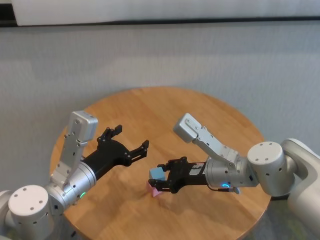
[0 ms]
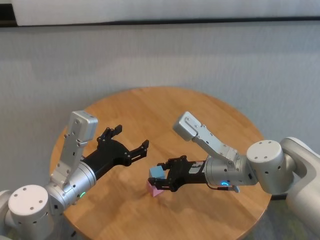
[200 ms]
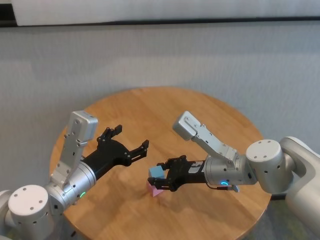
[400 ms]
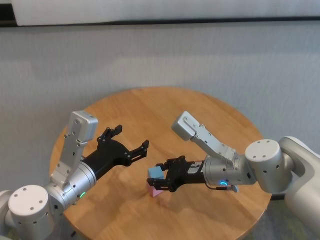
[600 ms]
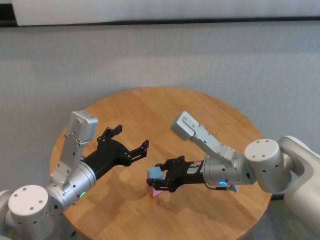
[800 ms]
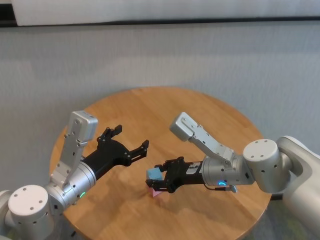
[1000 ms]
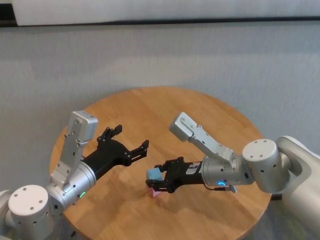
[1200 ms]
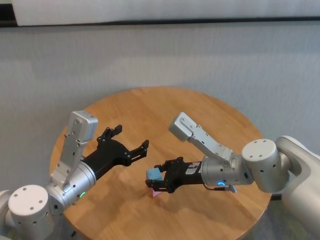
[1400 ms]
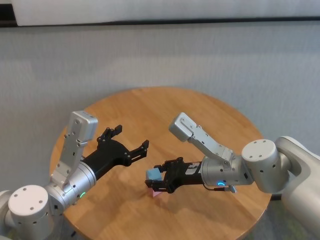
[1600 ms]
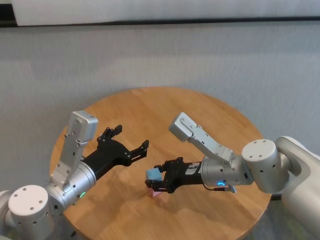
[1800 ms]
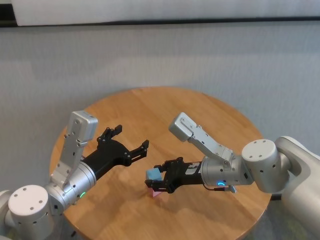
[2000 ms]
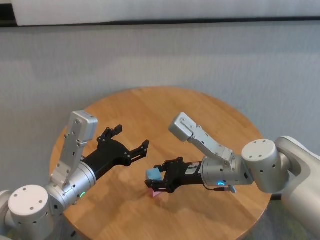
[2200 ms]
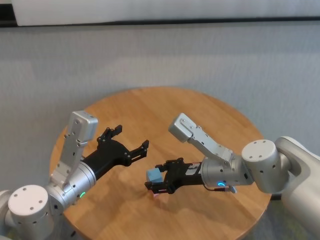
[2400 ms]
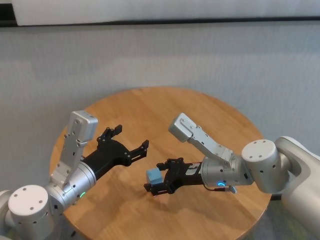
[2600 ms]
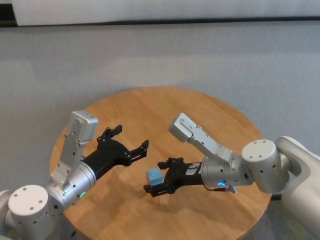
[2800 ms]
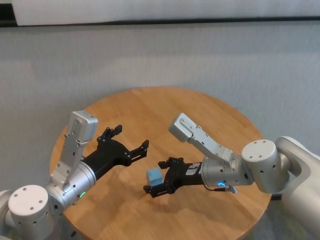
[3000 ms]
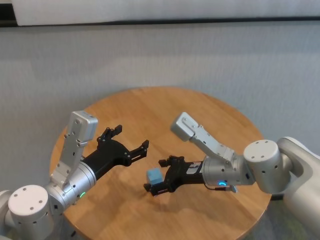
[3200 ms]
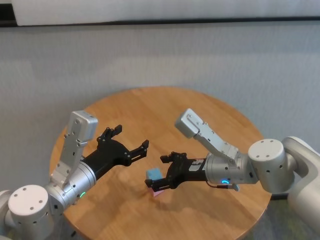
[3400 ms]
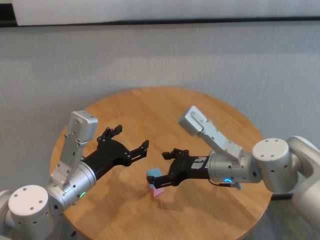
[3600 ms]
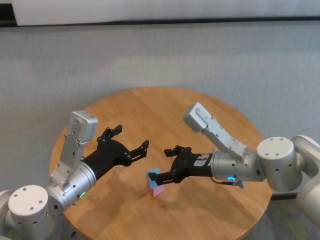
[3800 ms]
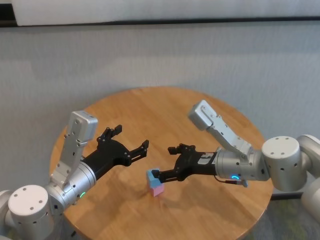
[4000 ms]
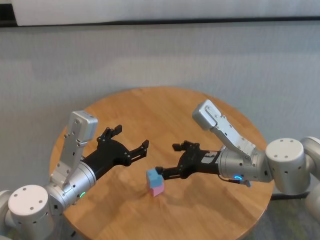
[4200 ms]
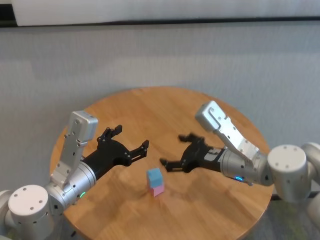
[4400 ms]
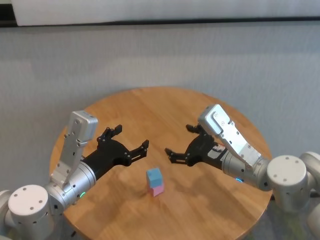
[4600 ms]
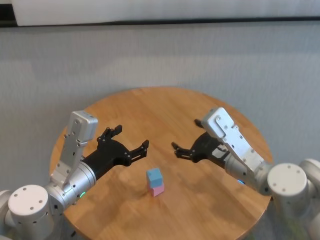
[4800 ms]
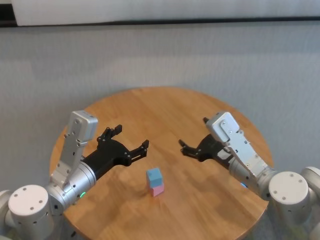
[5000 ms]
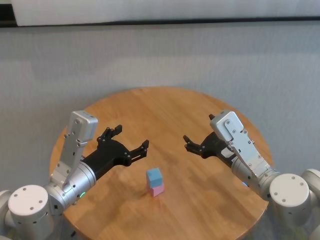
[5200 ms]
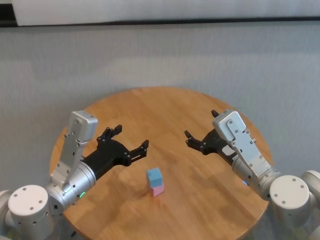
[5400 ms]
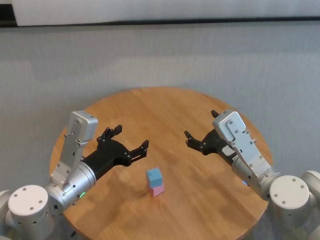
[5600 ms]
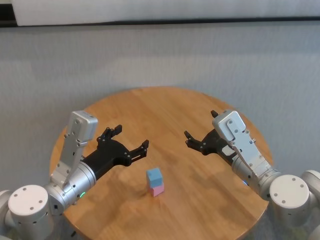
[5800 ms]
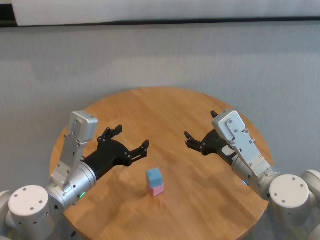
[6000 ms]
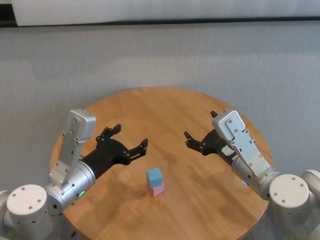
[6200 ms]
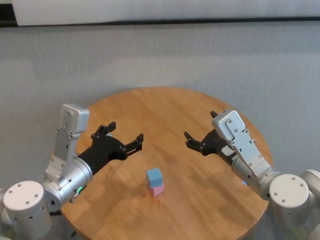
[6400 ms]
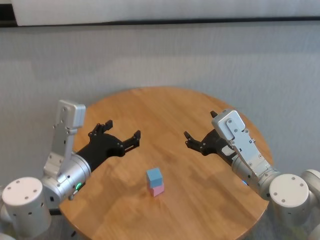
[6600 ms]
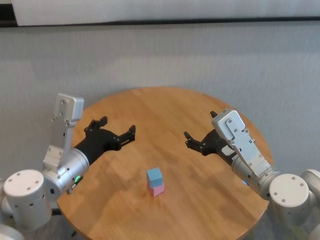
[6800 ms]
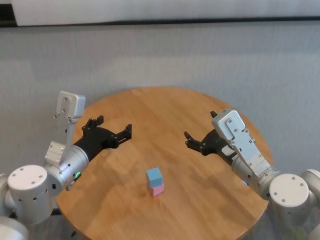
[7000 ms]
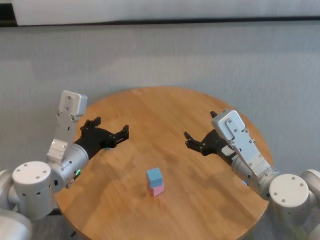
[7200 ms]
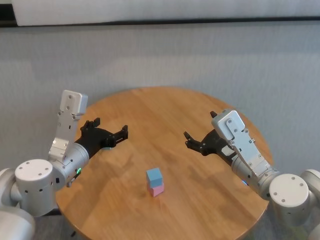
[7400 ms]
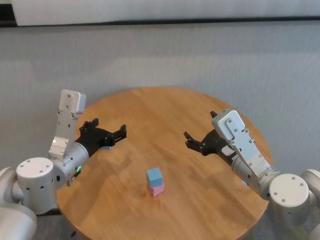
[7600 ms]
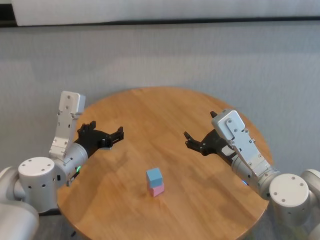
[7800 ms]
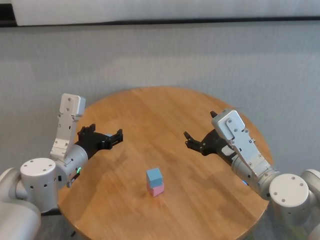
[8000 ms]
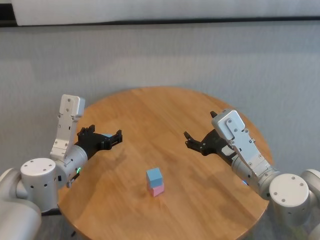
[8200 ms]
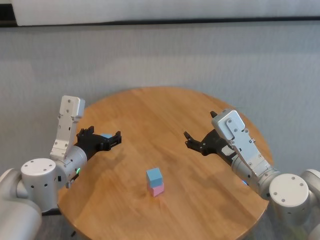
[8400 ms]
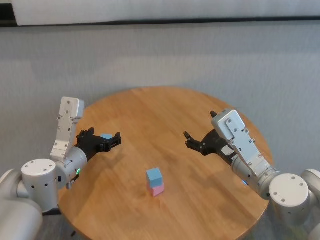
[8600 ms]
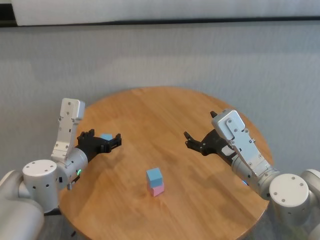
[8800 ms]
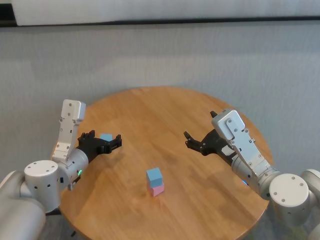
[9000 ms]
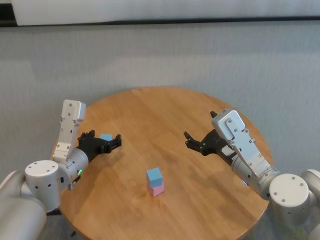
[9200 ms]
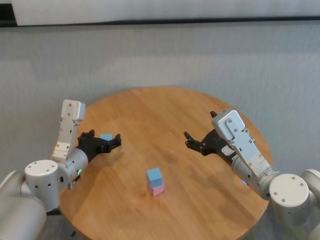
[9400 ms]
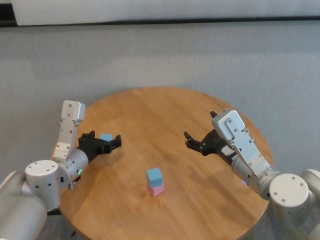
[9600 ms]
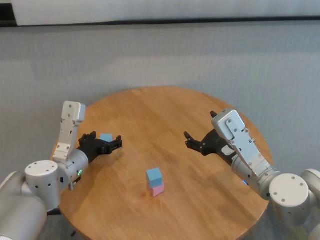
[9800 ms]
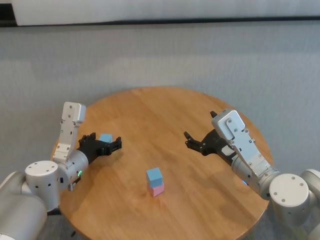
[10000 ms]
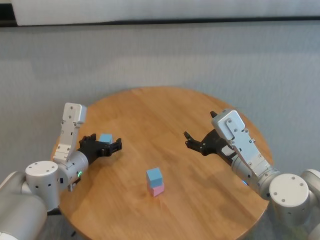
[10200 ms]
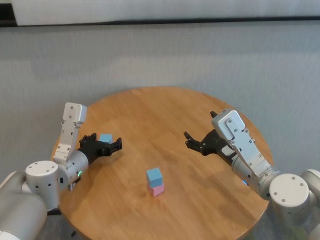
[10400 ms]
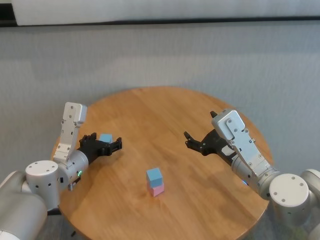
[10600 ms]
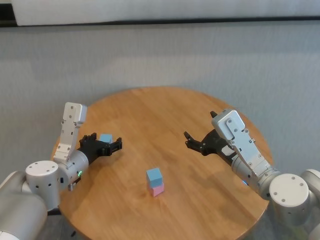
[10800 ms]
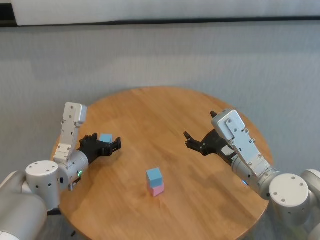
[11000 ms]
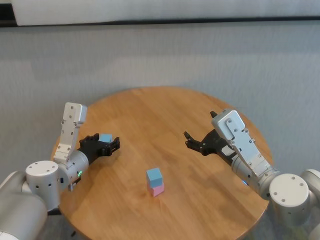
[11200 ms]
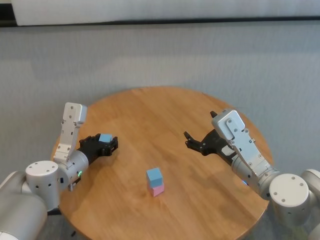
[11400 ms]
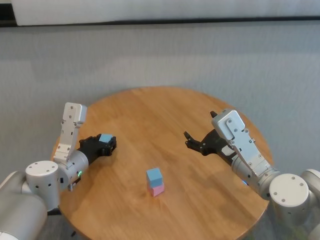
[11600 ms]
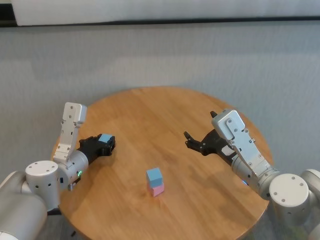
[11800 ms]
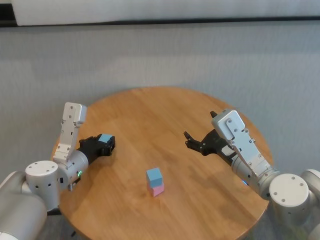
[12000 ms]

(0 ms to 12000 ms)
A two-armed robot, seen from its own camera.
Task of the whole recording: stack building blocks on the table.
Step, 0 ms - 2400 ms: Place the blue building block on the pink building blocks with right gripper.
Step, 2800 ms - 11600 ms: Grasp the blue building block with left gripper.

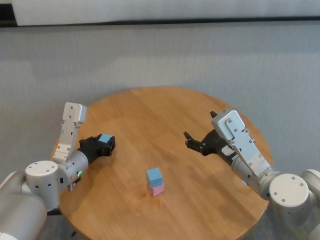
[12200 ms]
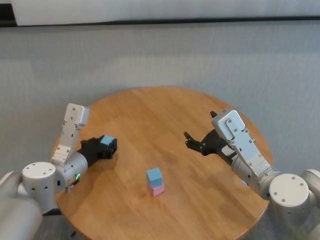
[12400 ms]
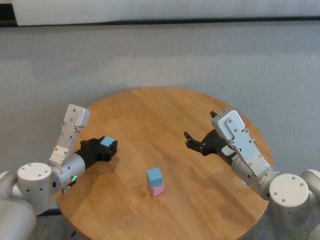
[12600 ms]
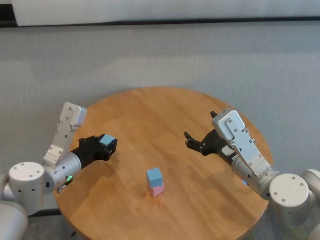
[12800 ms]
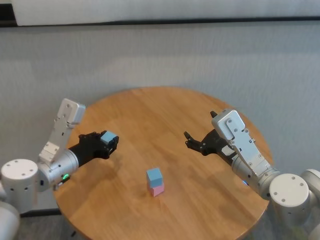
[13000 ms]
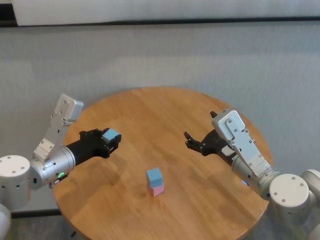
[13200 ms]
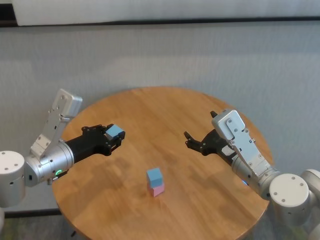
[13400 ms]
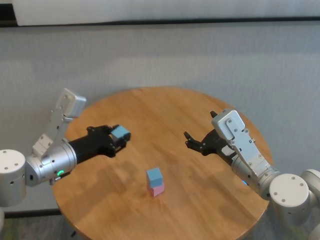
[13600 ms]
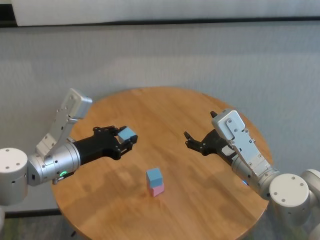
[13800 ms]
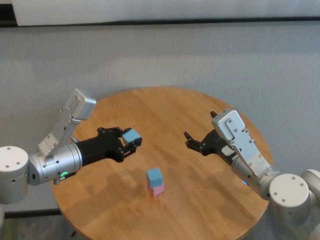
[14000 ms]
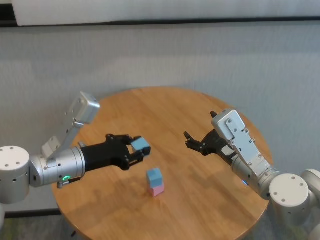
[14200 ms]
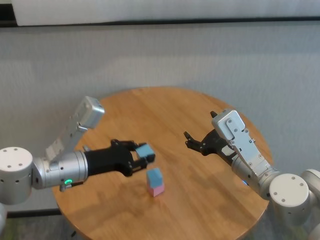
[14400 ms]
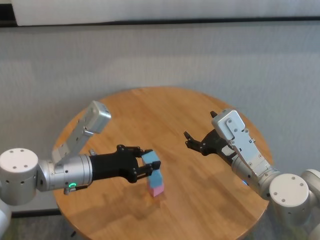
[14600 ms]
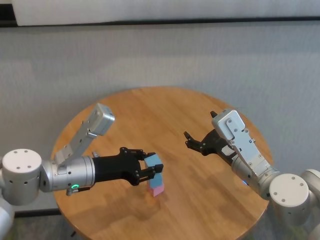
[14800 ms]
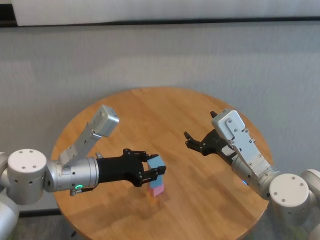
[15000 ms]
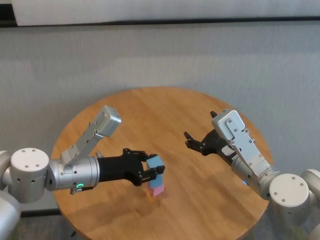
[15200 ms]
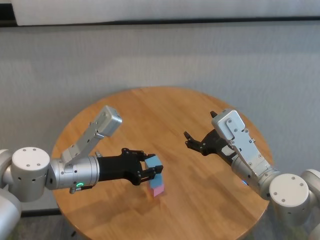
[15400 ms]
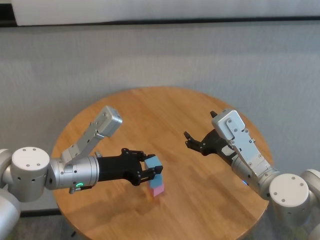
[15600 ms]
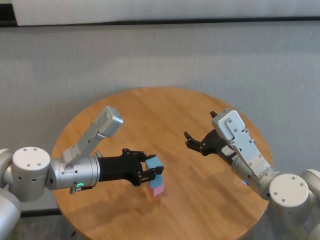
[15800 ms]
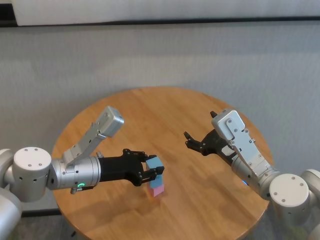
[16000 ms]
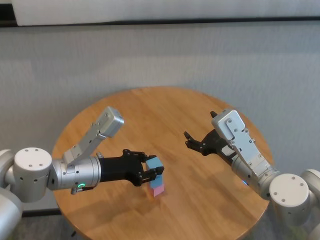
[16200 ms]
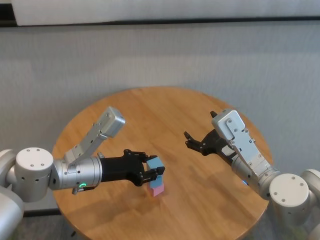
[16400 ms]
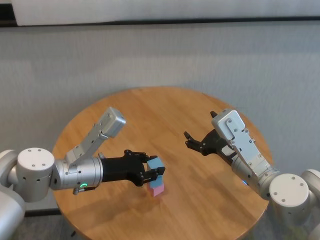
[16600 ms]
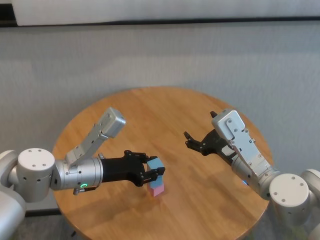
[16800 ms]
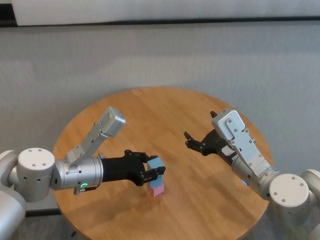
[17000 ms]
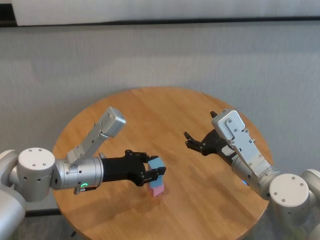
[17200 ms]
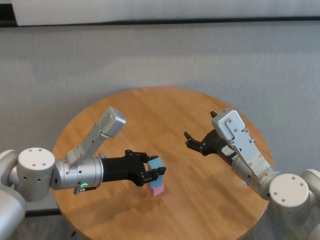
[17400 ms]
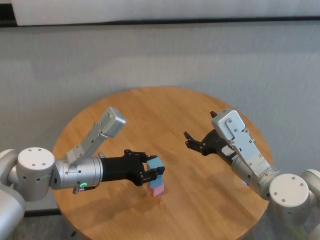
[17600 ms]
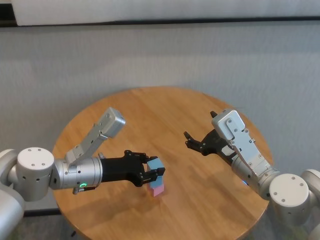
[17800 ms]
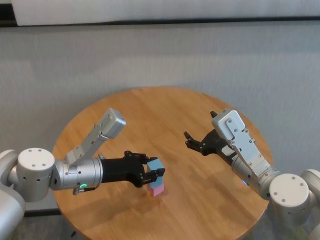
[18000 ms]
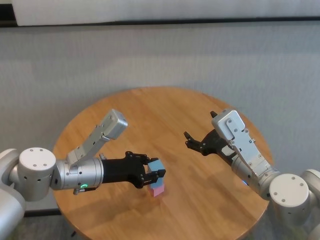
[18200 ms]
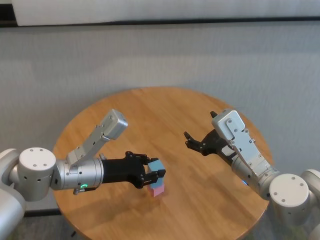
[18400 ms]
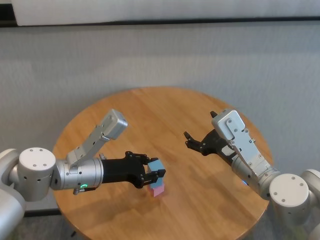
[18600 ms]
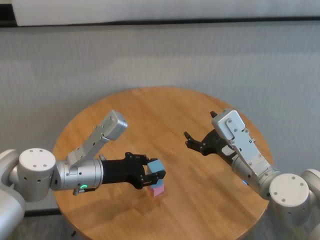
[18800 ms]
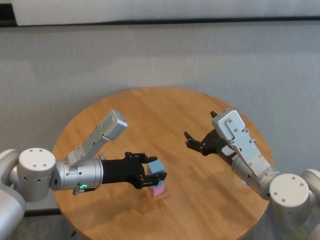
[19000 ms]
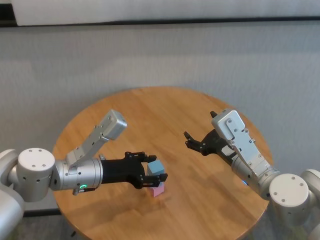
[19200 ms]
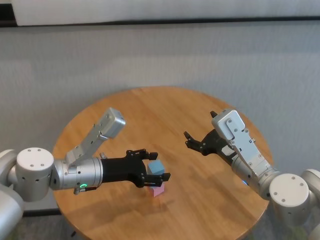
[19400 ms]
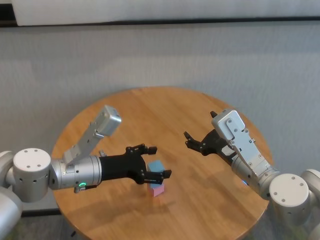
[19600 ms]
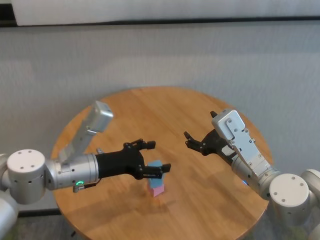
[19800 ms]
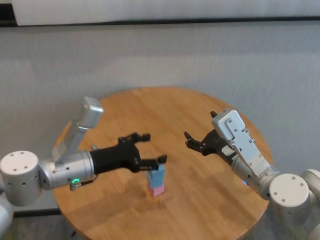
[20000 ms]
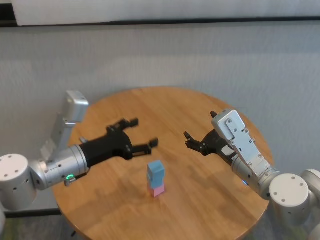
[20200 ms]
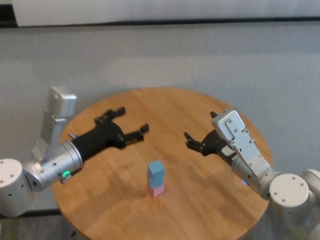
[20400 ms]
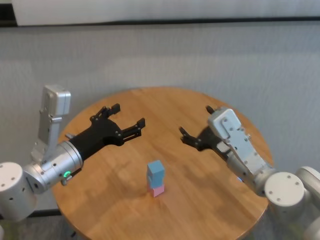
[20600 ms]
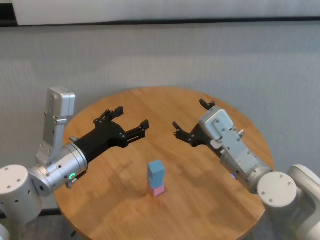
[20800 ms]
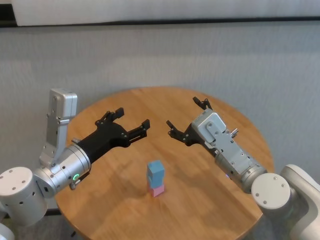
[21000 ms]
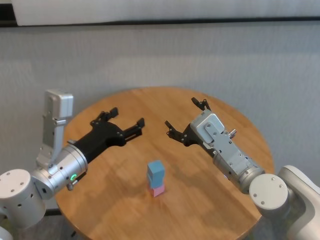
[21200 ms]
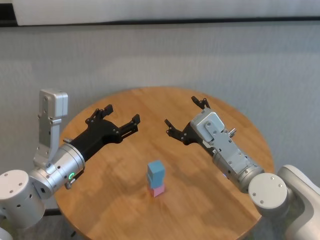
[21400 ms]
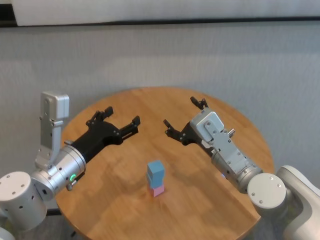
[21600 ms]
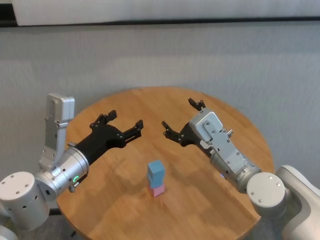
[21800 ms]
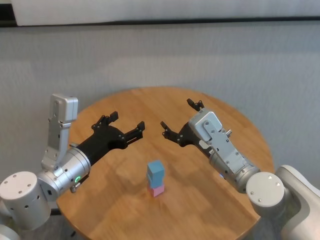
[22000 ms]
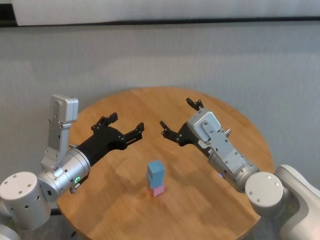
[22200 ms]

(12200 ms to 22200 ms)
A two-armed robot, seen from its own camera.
Task of the whole recording: stack building blocks on the table.
Step, 12200 ms - 19000 ms: Place the blue building block on the blue building blocks with left gripper.

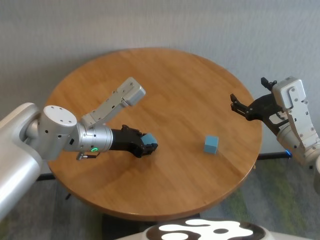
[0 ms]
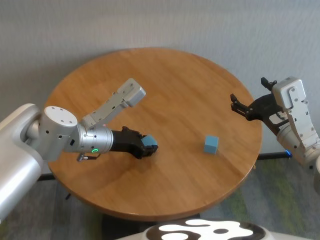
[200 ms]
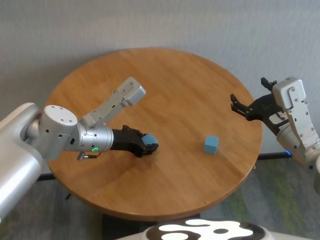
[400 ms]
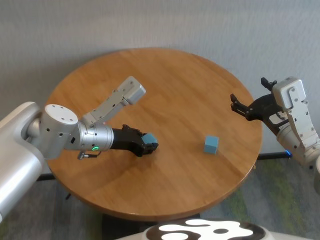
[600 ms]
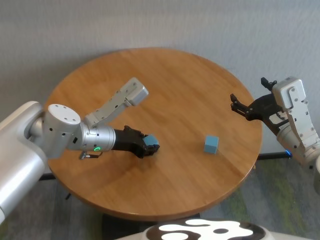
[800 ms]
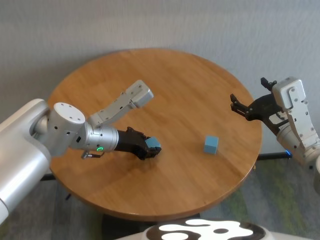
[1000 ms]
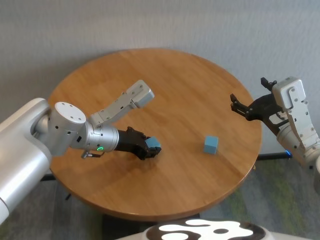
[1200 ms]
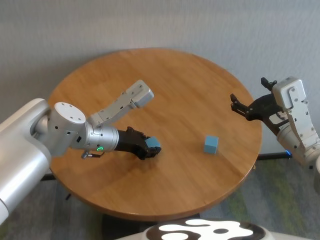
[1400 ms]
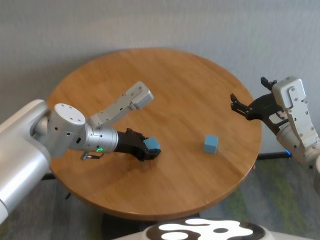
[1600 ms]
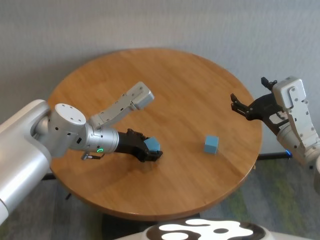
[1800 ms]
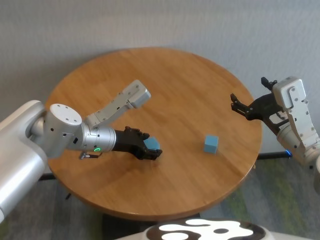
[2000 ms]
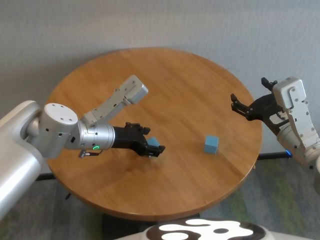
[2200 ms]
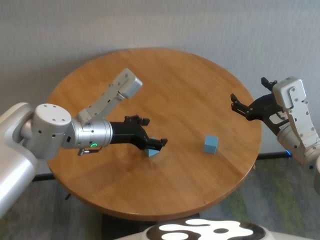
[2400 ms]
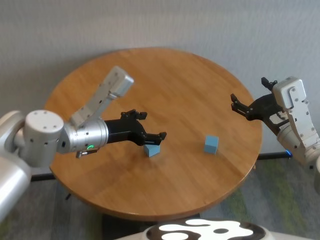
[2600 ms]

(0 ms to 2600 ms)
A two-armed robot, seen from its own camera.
Task of the whole recording: stack building blocks on the table.
Step, 0 ms - 2000 ms: Place the blue building block in the center of table with left gripper.
